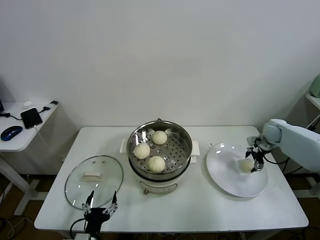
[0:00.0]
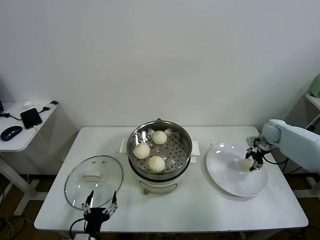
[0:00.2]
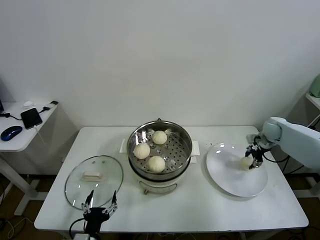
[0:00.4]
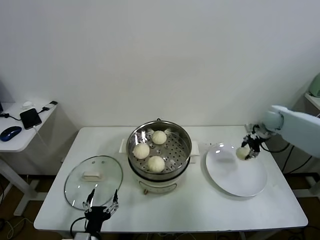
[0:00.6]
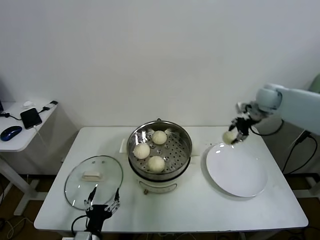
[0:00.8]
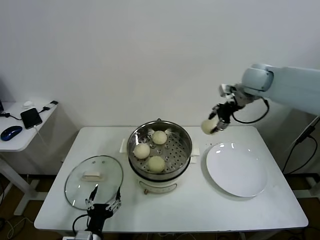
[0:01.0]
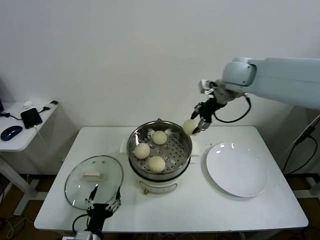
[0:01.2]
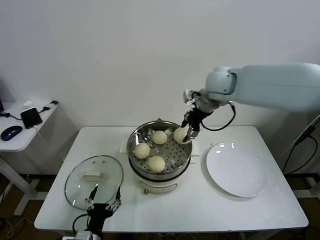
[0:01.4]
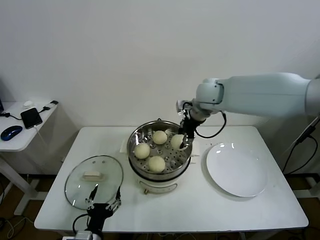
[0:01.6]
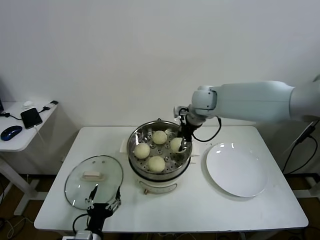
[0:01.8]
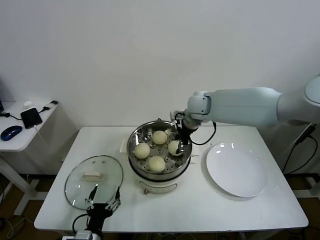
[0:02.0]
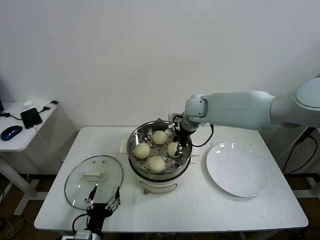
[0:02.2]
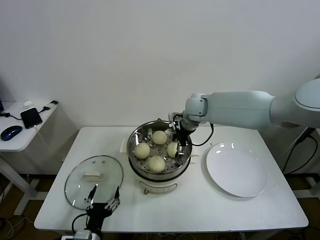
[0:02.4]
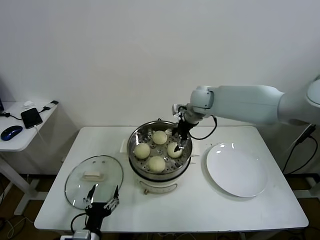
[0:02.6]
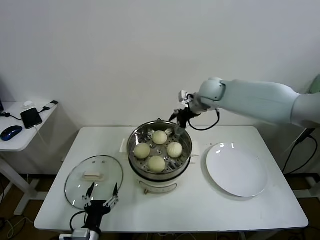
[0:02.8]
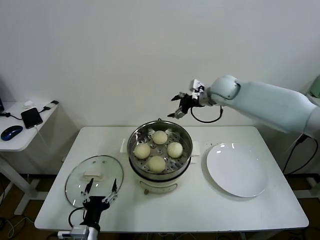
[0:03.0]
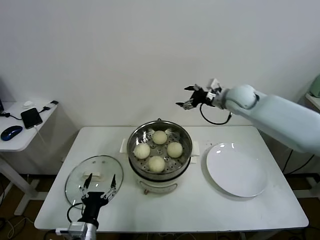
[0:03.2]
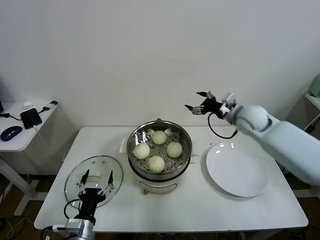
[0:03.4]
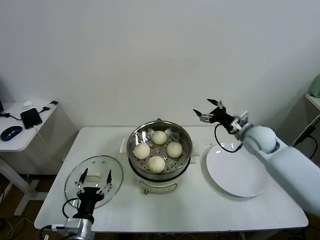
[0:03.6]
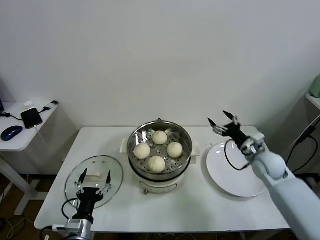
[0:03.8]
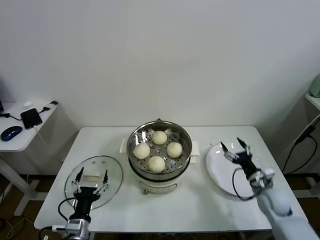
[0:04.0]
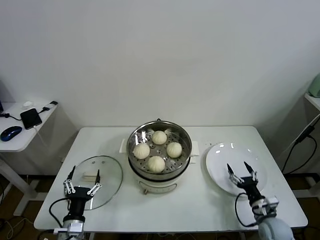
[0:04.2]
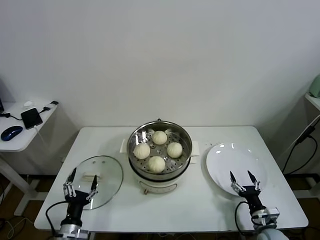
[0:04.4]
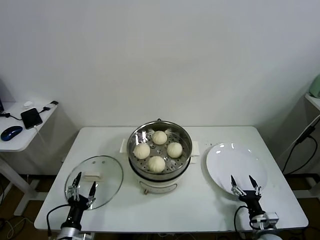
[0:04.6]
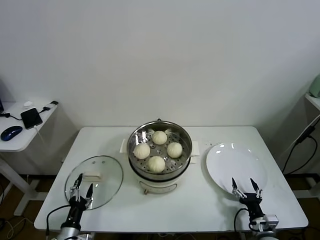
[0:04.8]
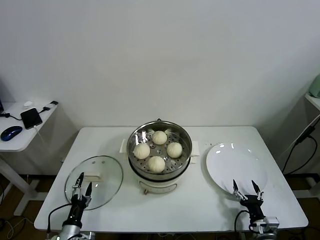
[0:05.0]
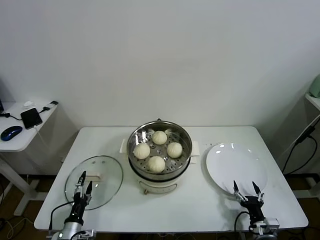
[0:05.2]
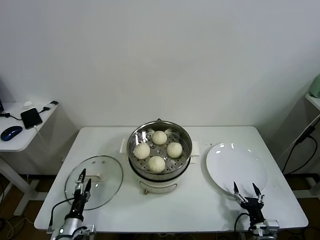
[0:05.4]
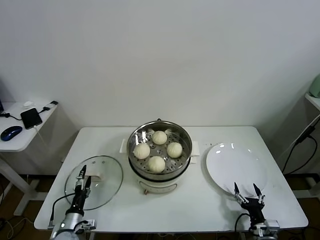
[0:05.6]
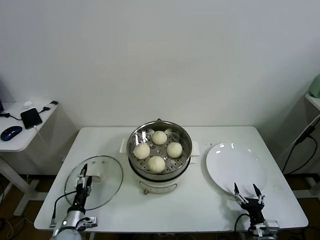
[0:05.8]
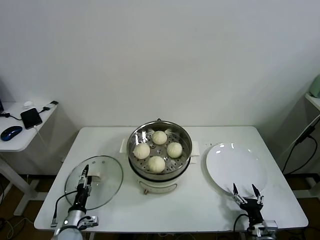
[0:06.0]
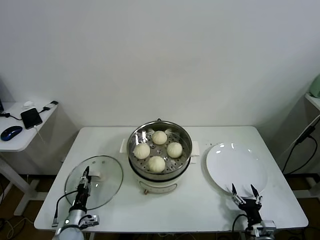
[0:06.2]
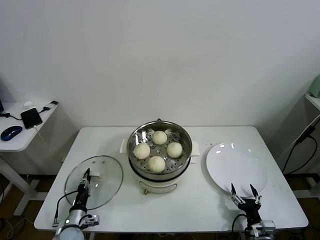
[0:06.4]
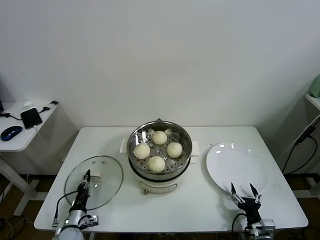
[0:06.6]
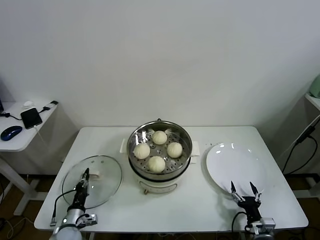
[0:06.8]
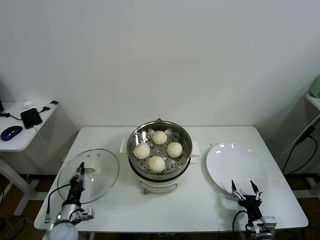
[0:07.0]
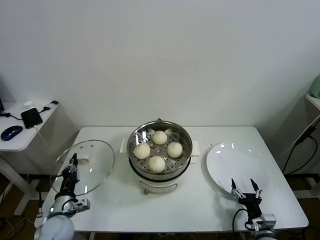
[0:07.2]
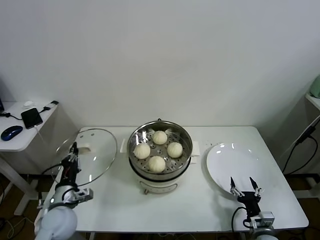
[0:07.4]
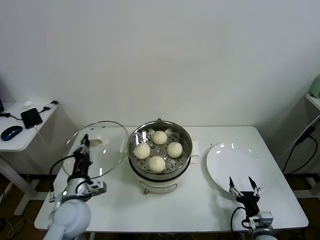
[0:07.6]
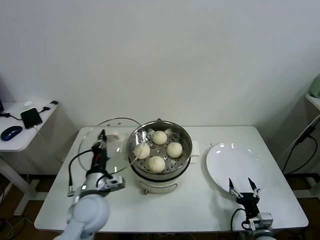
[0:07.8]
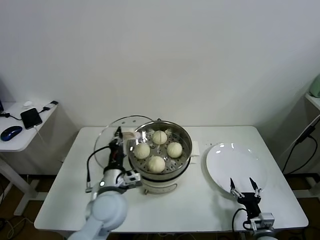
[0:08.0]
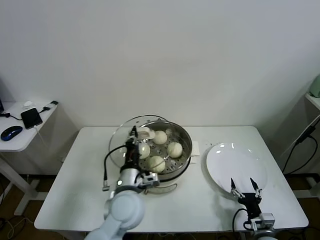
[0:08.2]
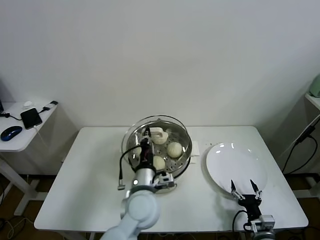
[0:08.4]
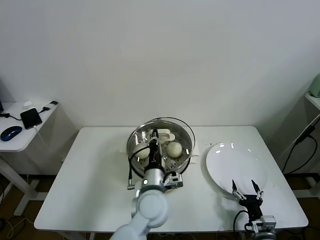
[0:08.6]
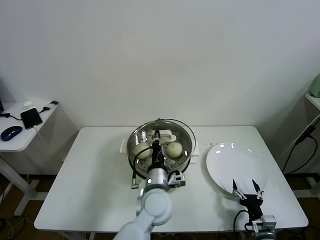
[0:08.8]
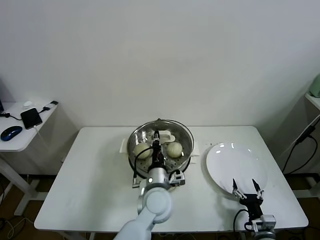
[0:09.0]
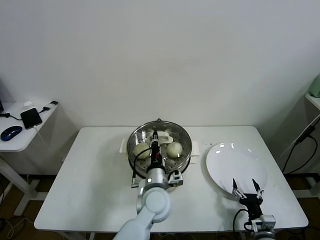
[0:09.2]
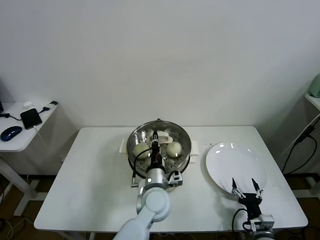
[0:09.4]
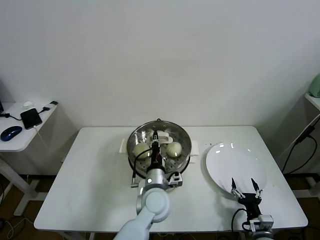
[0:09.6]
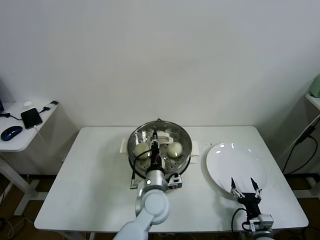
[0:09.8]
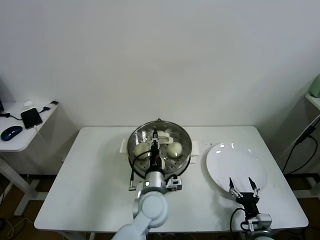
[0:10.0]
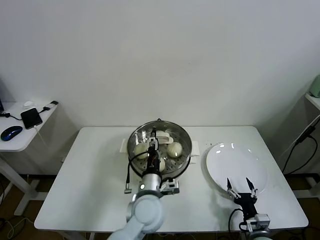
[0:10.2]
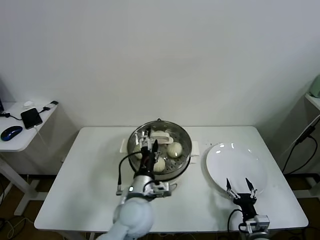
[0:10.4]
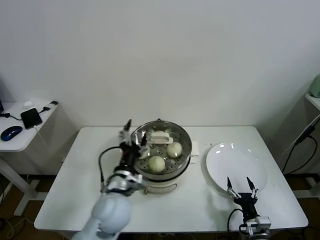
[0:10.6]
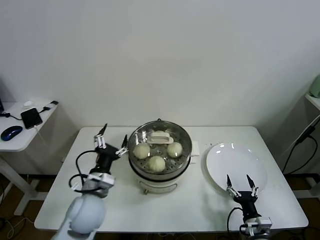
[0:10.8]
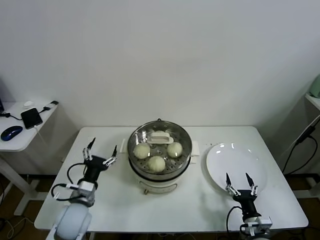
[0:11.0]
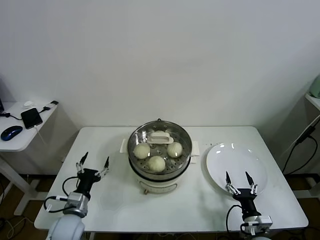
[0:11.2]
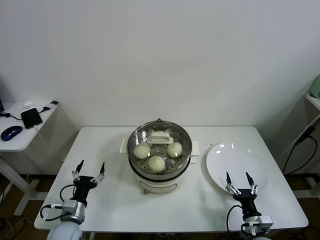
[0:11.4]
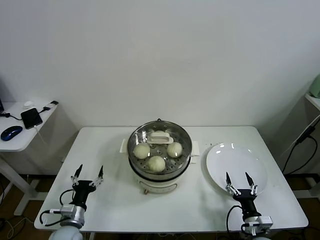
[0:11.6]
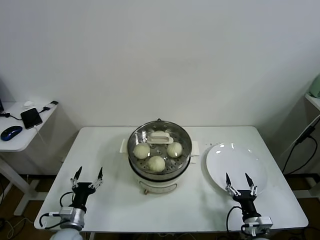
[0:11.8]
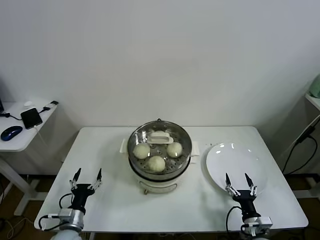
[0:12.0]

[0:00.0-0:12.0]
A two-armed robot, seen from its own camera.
Task of the whole recording: take steamed baozi put them in steamer.
Step, 0:00.4 to 0:02.2: Place the baozi on the steamer with right gripper.
Step, 0:02.4 to 0:06.8: Grasp the pot lid with left gripper.
Step, 0:07.0 to 0:09.8: Place the pot lid on the steamer with left gripper.
0:00.0 to 0:01.6: The right gripper travels to the left and upward by approximately 35 cm, and closes up.
0:01.6 to 0:03.0: The right gripper goes about 5 cm to the right, and opens up.
0:03.0 to 0:04.4: The right gripper is displaced downward, backward and to the right by roughly 50 cm; the left gripper moves to the left, some 5 cm.
0:04.4 to 0:06.0: The left gripper goes approximately 10 cm downward and forward. Meanwhile the right gripper moves roughly 5 cm.
0:06.0 to 0:07.6: The left gripper goes some 20 cm upward, and closes its fingers.
0:07.6 to 0:09.0: The left gripper is displaced to the right by some 25 cm.
0:09.0 to 0:10.4: The left gripper ends up approximately 5 cm from where it was, and opens.
0:10.4 to 0:12.0: The left gripper is displaced to the left and downward by about 30 cm.

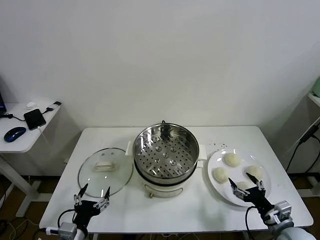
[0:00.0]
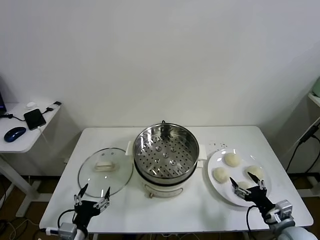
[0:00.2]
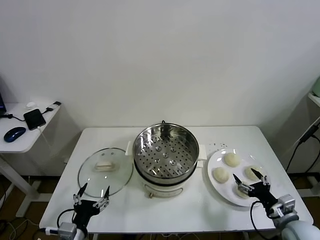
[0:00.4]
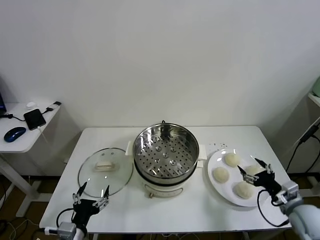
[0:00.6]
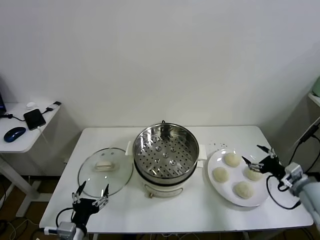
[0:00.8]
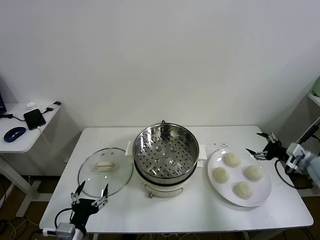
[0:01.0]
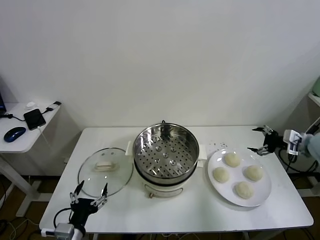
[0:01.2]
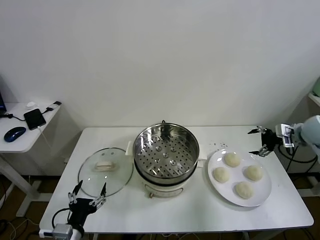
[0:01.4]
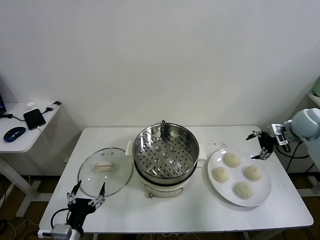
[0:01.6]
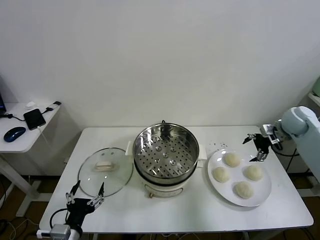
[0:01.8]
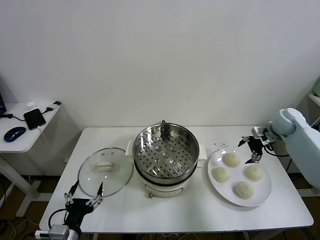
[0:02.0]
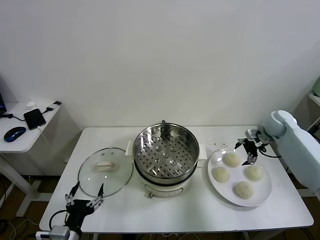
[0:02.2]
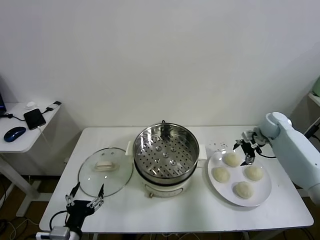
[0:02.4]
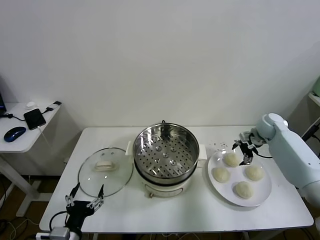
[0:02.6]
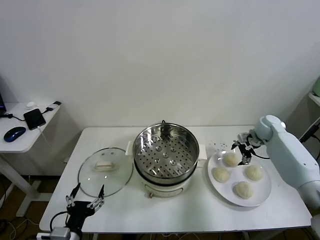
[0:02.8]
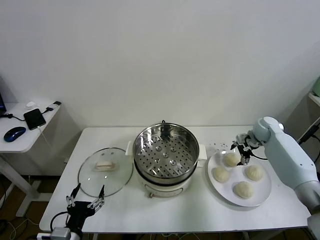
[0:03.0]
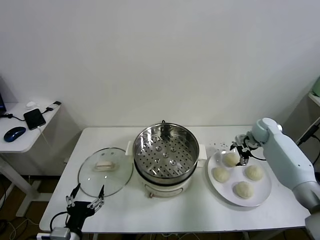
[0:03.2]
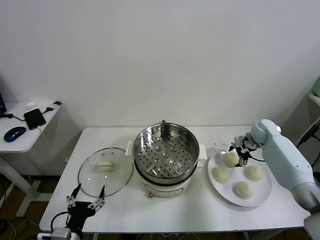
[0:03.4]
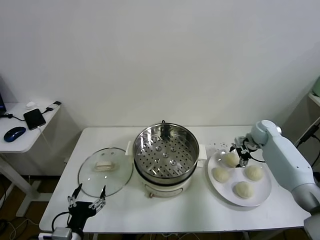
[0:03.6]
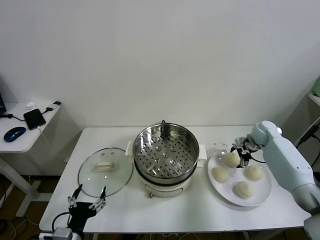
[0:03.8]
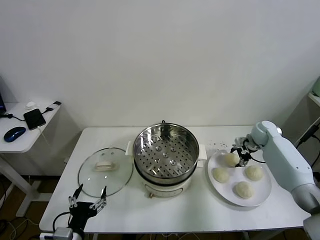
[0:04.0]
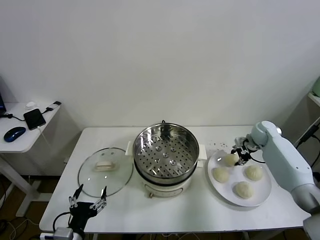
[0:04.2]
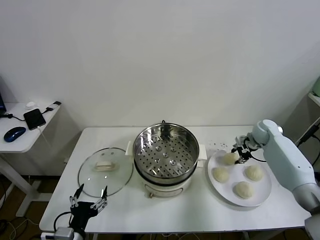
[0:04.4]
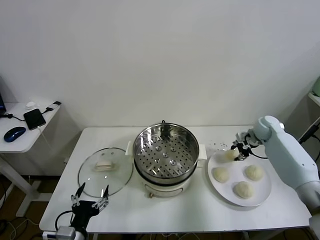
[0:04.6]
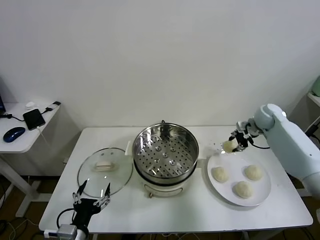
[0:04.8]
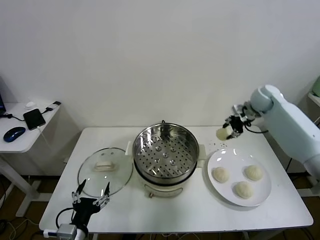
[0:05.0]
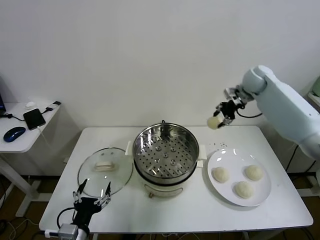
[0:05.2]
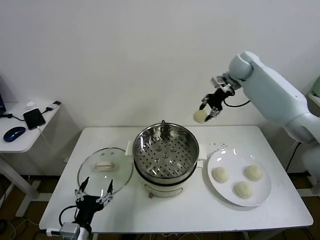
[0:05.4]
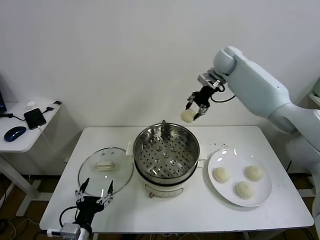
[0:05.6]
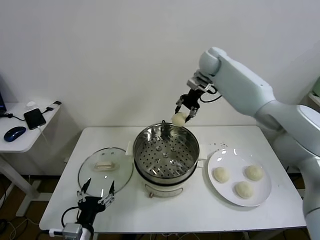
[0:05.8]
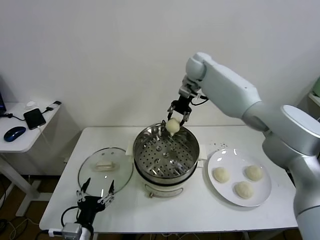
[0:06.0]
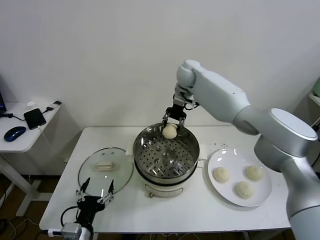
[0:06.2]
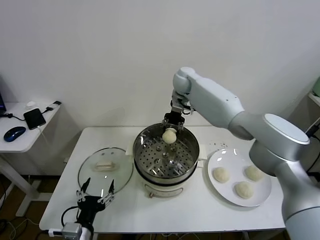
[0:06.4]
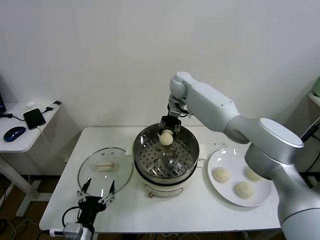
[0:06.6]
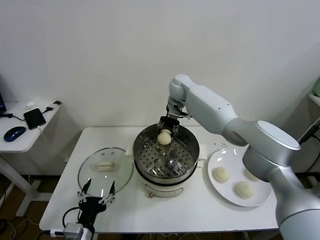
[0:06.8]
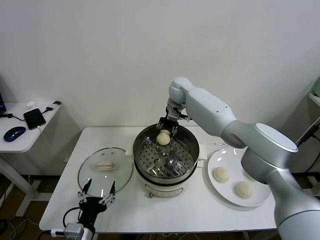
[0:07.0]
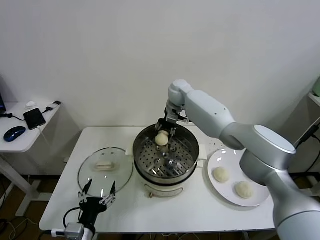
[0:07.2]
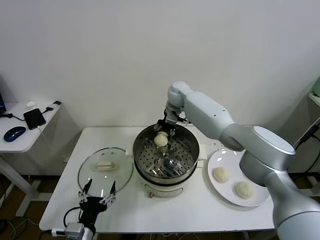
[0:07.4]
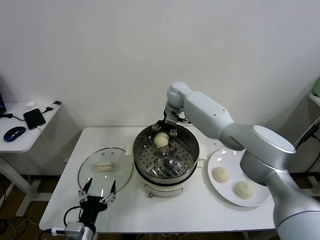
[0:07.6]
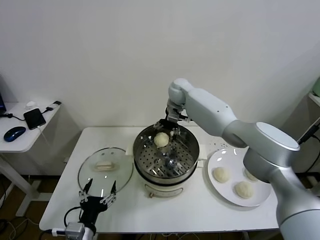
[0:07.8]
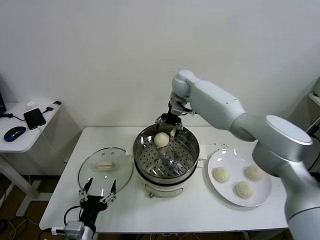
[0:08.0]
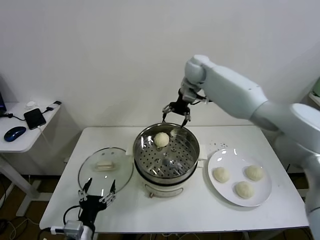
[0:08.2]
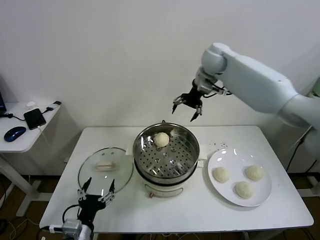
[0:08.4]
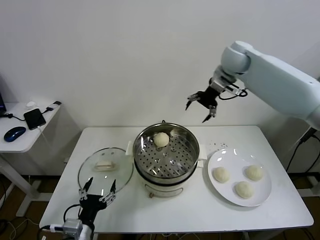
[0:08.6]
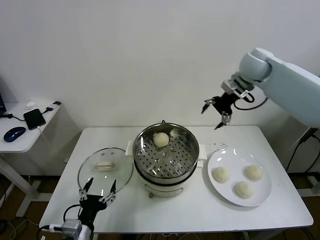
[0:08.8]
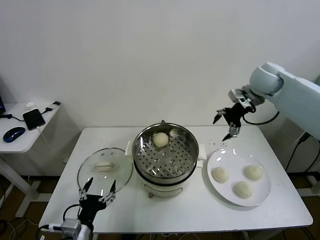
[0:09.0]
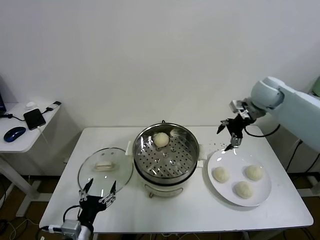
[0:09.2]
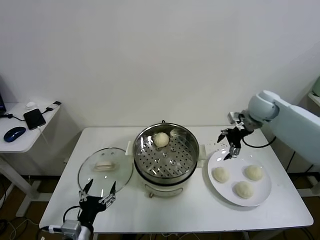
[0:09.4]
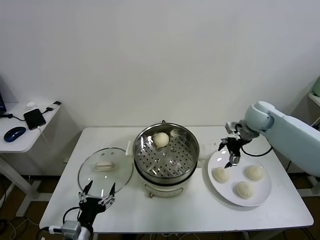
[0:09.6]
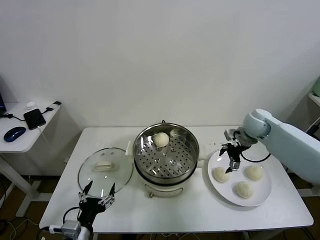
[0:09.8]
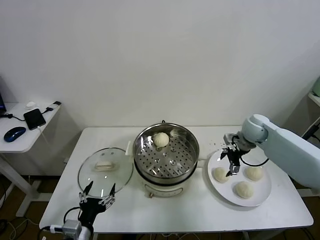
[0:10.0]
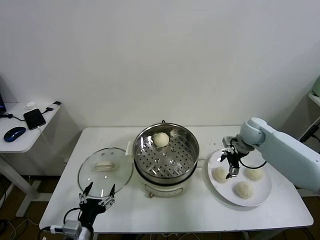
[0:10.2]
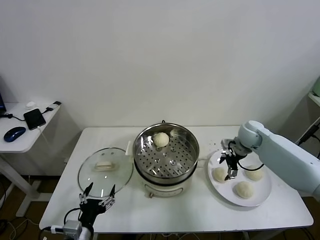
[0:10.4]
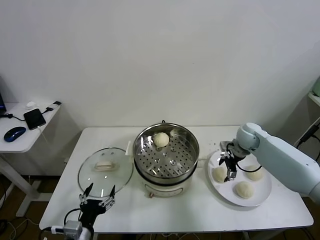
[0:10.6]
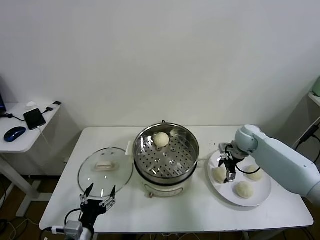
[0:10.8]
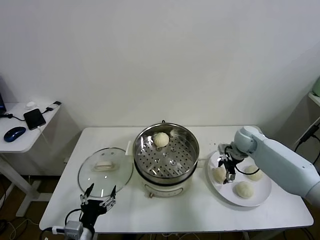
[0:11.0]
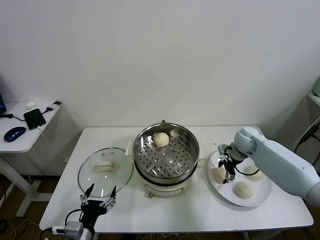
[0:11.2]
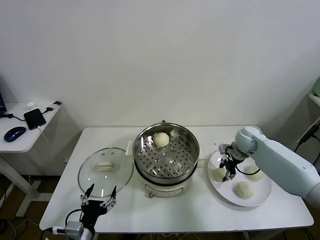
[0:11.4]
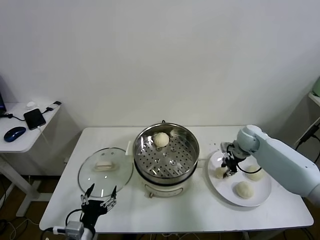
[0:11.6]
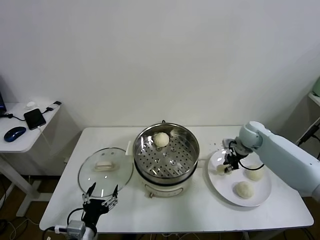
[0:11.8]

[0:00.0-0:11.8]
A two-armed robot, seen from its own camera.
Task of the whole recording: take steamed baozi put them in steamer.
Step, 0:00.0 to 0:04.0: Grasp the baozi in the plate with right gripper.
Step, 0:04.4 to 0:07.8: Place the baozi on the steamer with right gripper.
Step, 0:08.0 to 0:11.2: Grasp the baozi in the plate with right gripper.
0:01.4 to 0:03.0: The right gripper moves downward, forward and to the left, some 15 cm.
0:03.0 to 0:04.4: The right gripper closes.
0:04.4 to 0:06.0: The right gripper shifts roughly 35 cm to the left and upward.
0:06.0 to 0:07.4: The right gripper moves downward, approximately 10 cm.
0:07.4 to 0:08.8: The right gripper heads to the right and upward, covering roughly 30 cm.
0:08.8 to 0:10.4: The right gripper travels downward by approximately 25 cm.
0:10.4 to 0:11.8: The right gripper closes its fingers.
